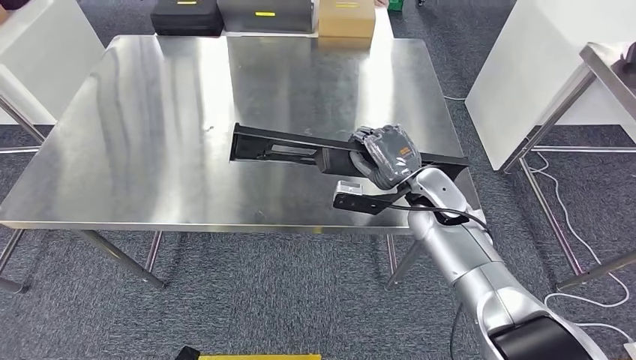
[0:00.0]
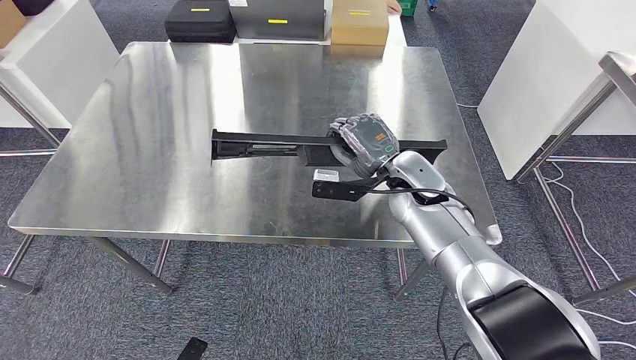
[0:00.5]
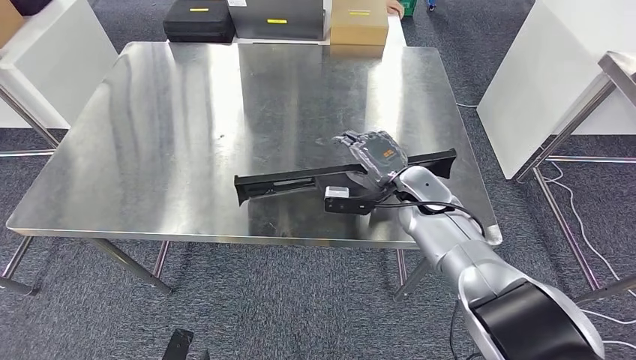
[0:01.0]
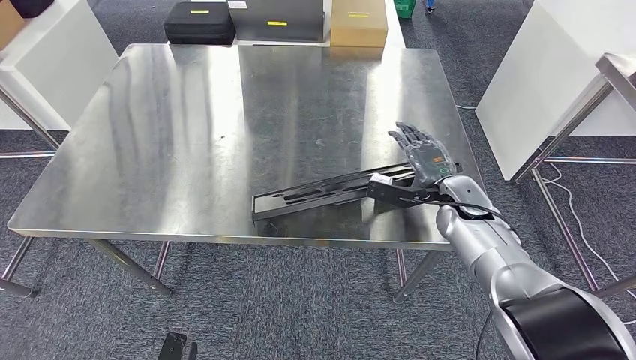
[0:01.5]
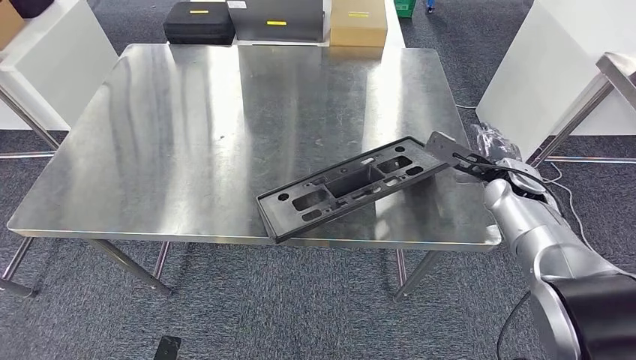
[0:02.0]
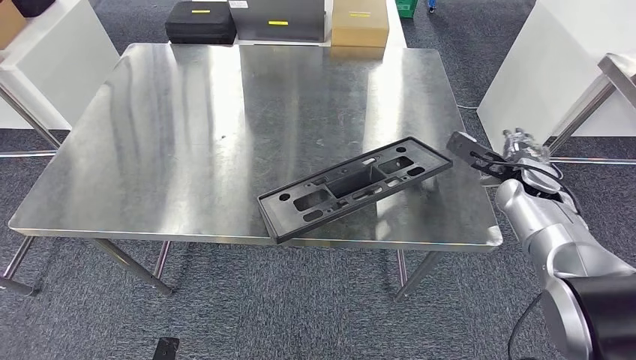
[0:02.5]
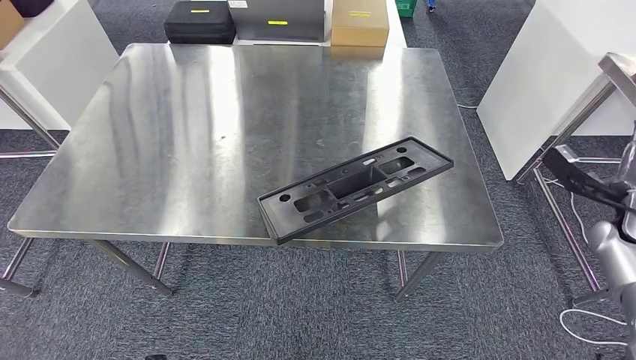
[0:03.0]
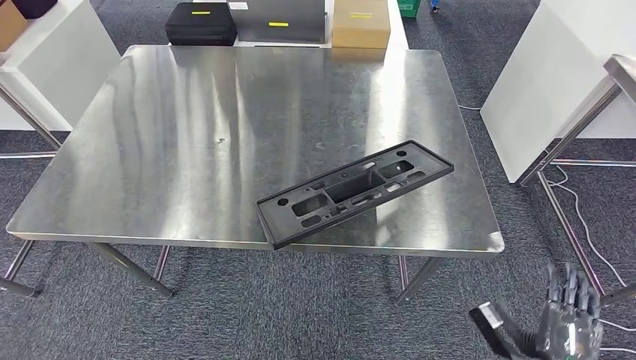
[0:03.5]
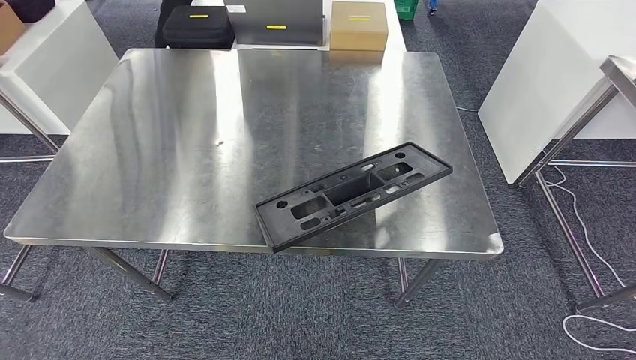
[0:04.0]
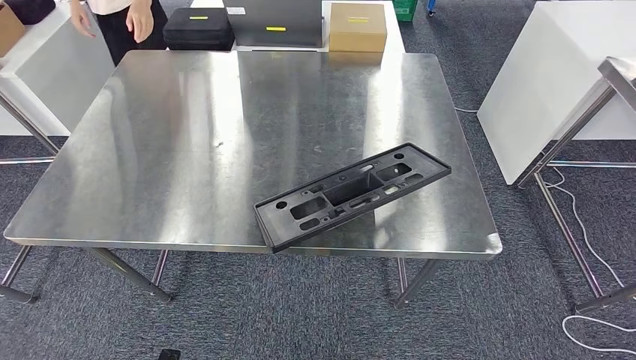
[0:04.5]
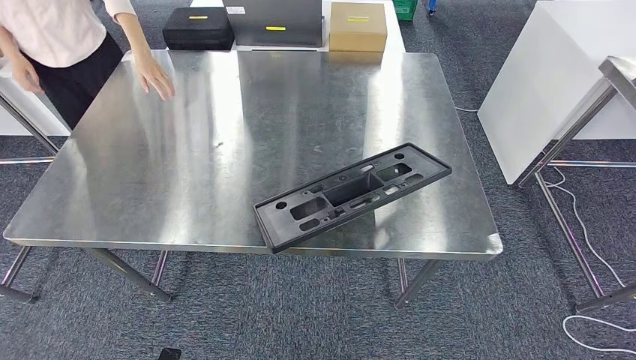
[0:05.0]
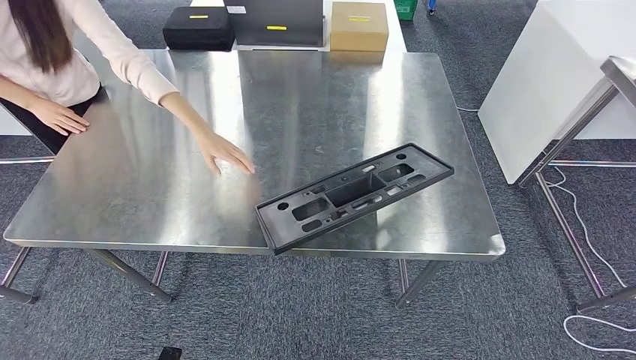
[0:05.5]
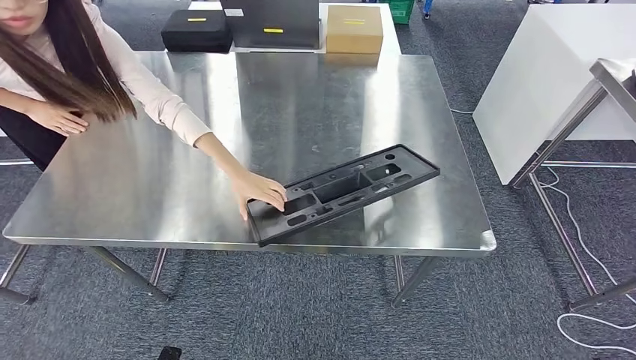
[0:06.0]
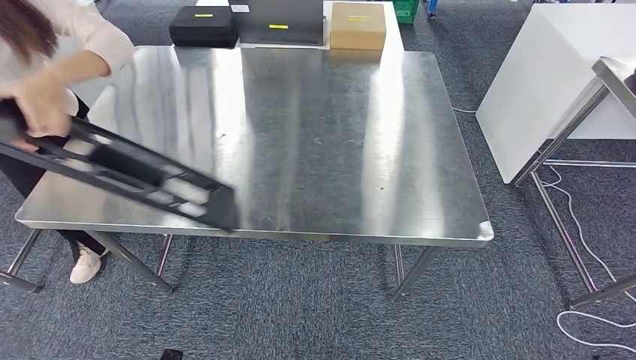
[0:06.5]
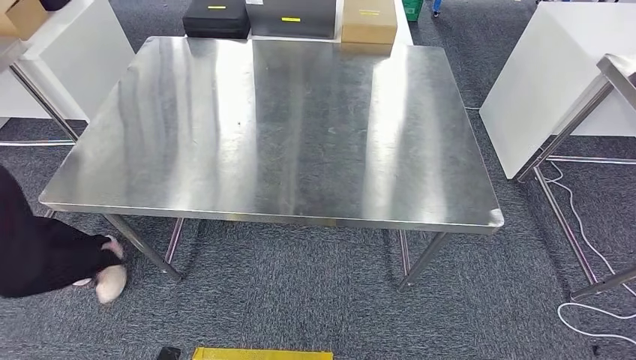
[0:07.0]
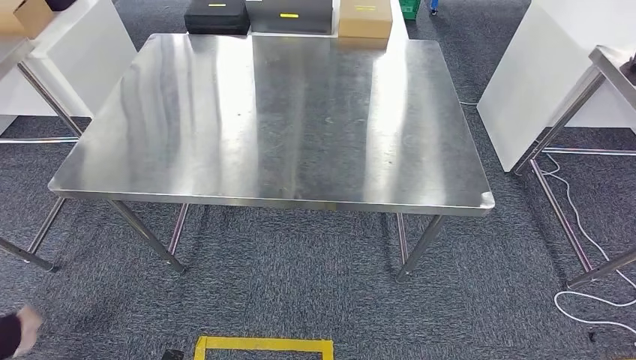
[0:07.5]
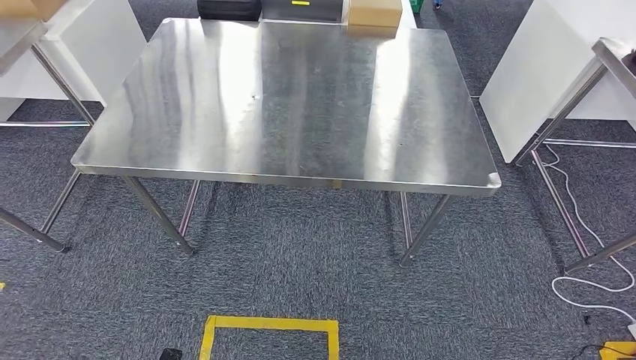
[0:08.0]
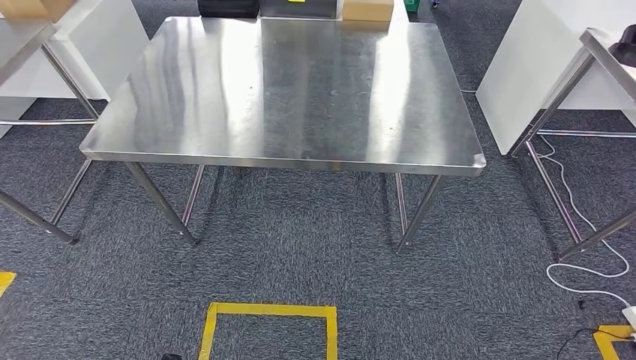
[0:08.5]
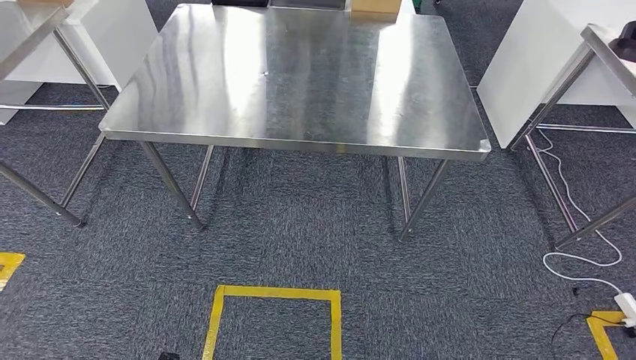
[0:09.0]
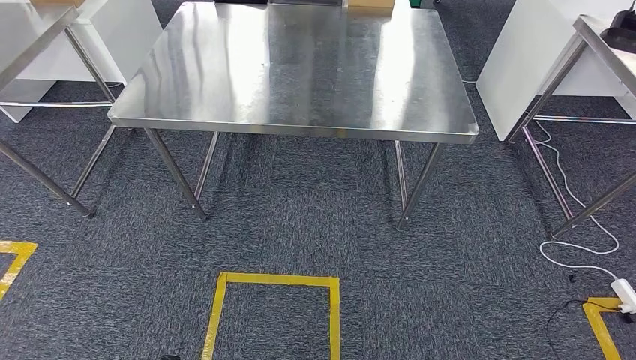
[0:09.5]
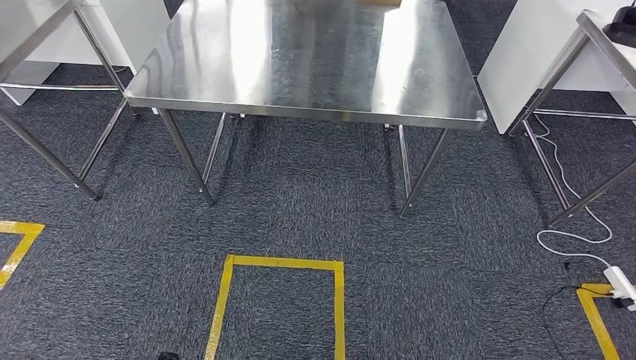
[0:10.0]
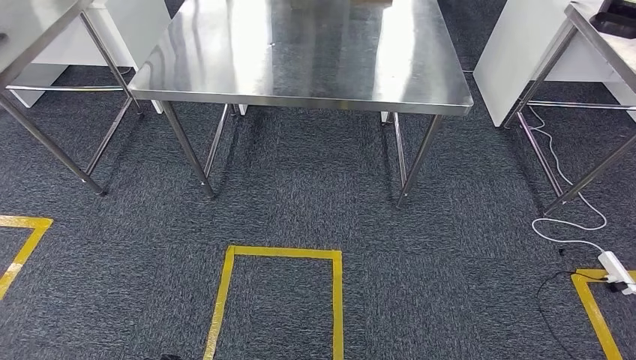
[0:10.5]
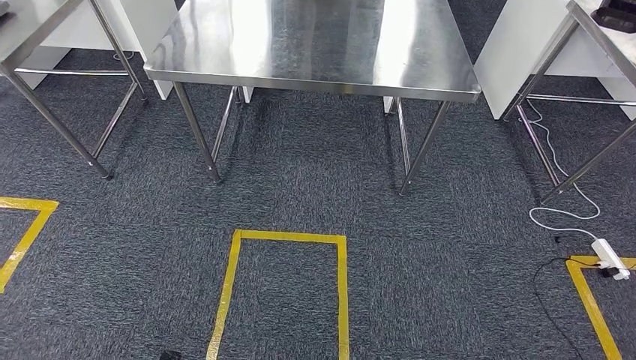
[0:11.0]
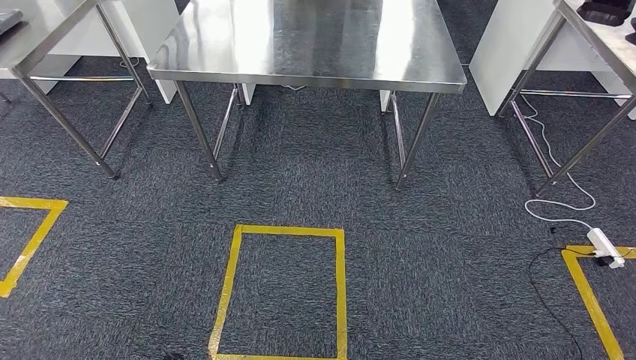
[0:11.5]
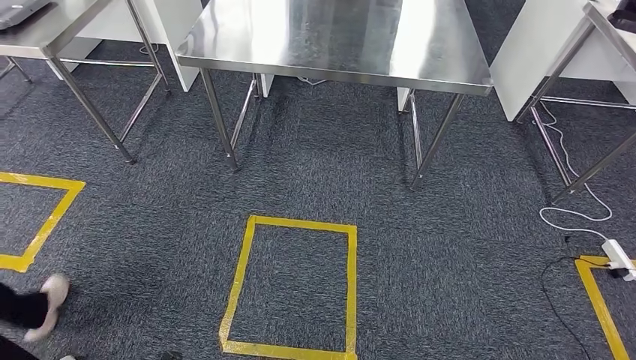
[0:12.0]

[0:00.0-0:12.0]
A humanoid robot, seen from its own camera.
Step, 0:00.0 to 0:04.0: Insert the large material into the corresponding slot on the workbench.

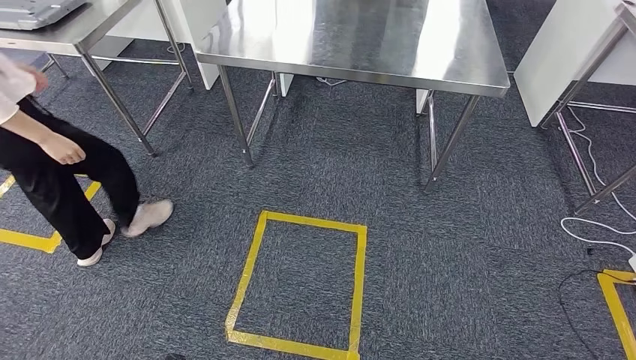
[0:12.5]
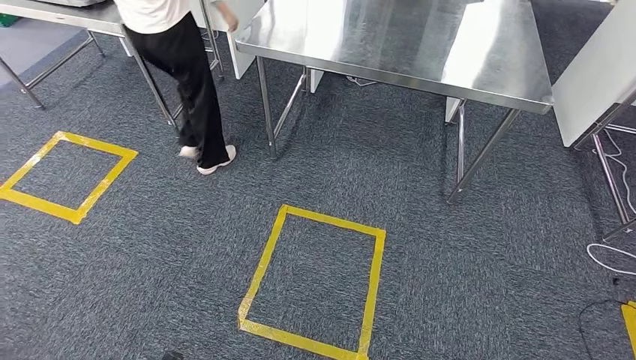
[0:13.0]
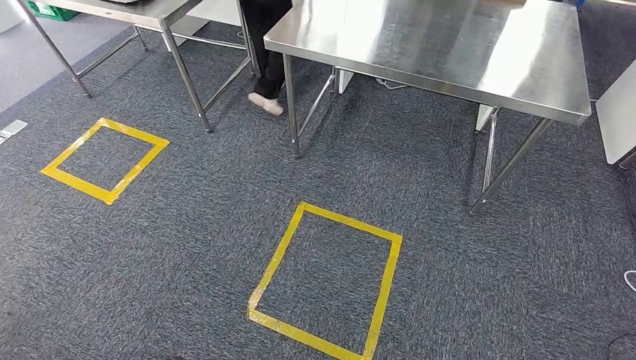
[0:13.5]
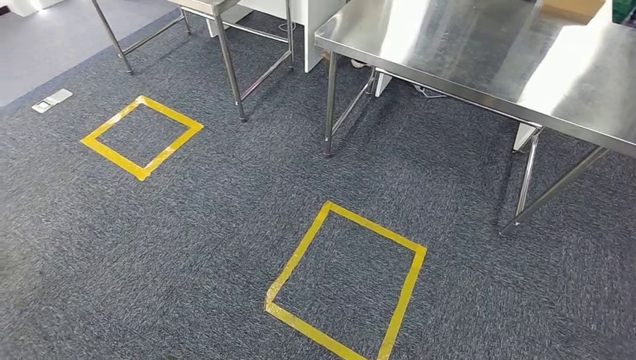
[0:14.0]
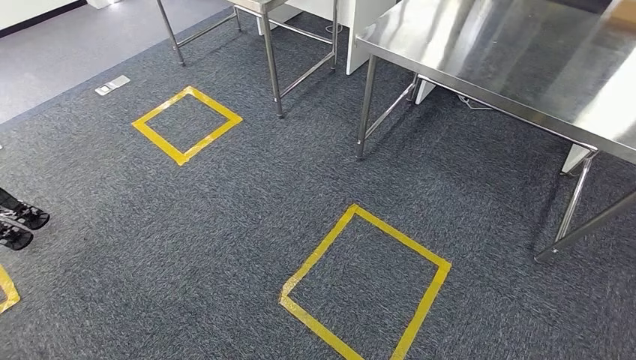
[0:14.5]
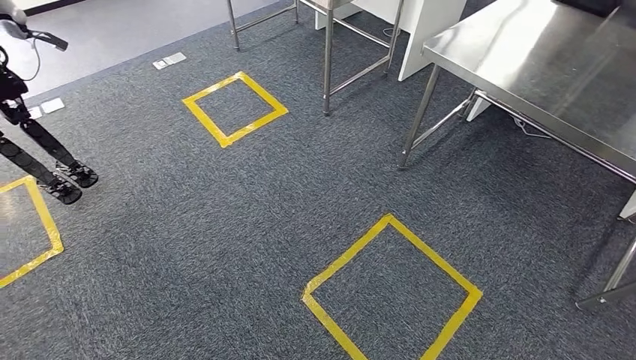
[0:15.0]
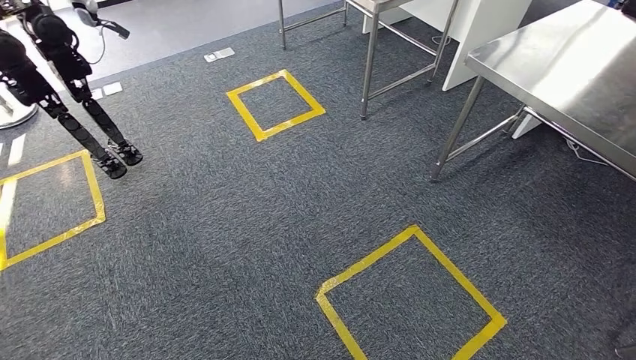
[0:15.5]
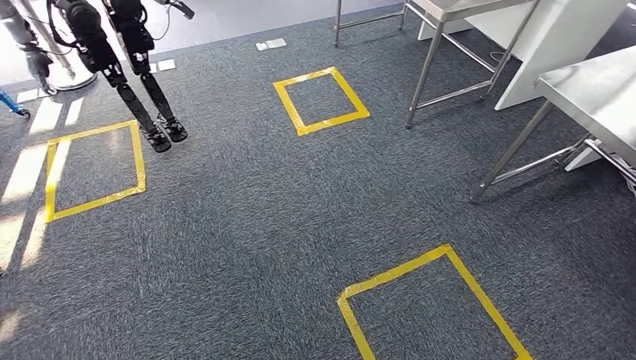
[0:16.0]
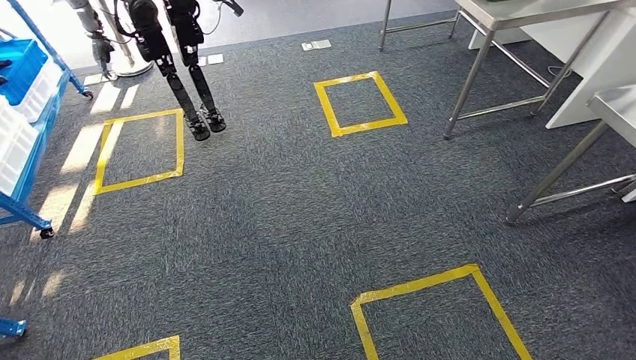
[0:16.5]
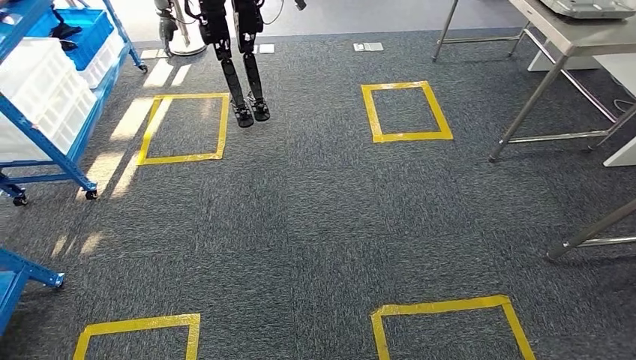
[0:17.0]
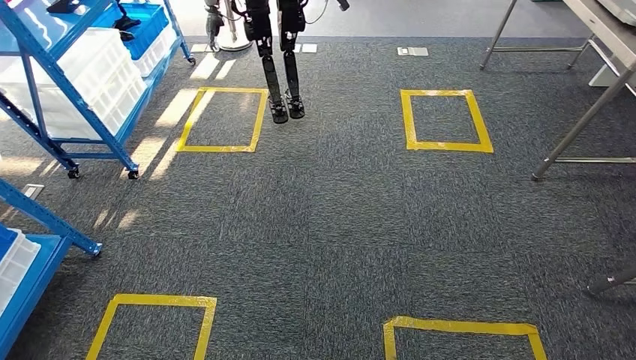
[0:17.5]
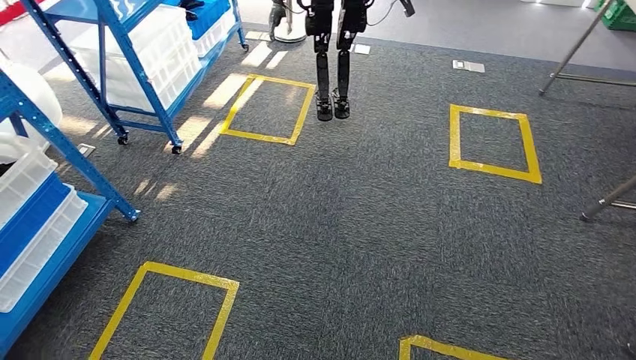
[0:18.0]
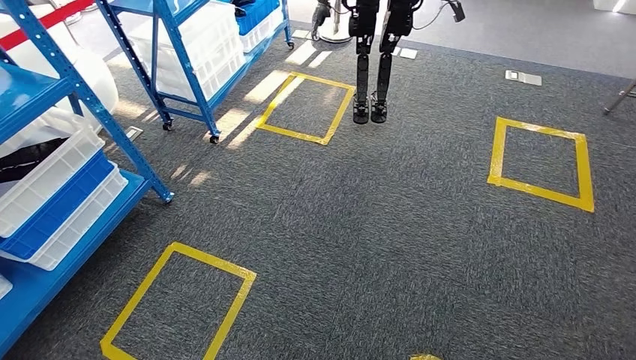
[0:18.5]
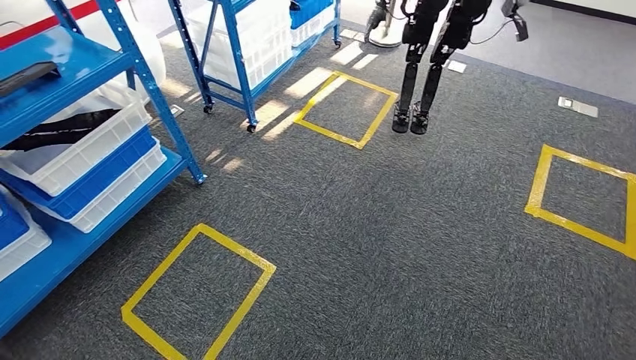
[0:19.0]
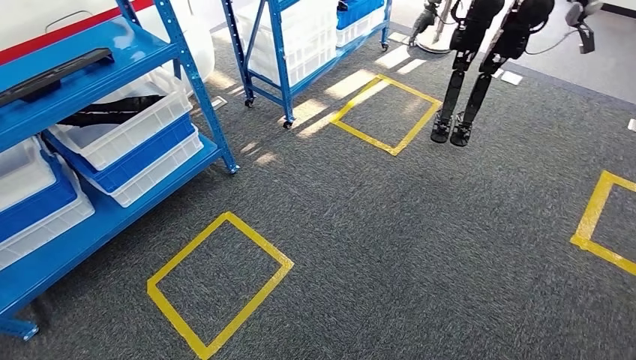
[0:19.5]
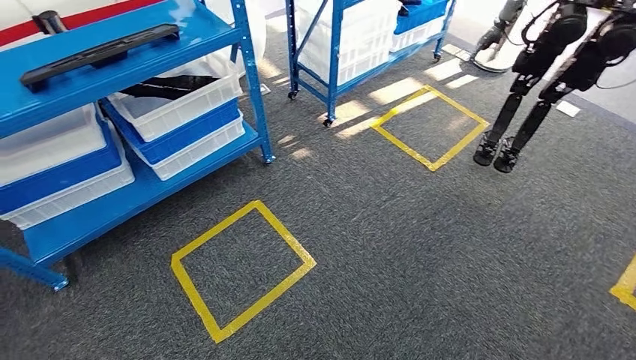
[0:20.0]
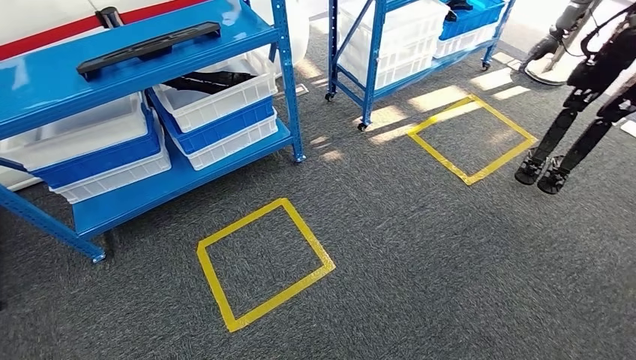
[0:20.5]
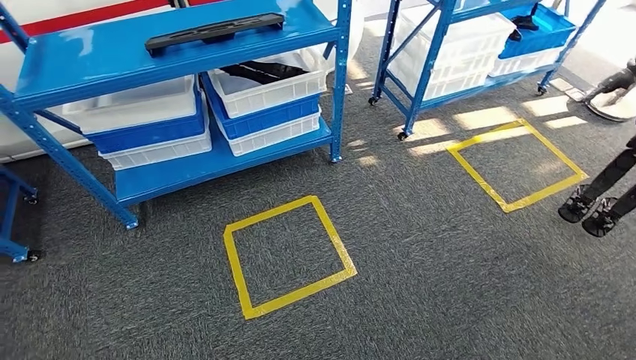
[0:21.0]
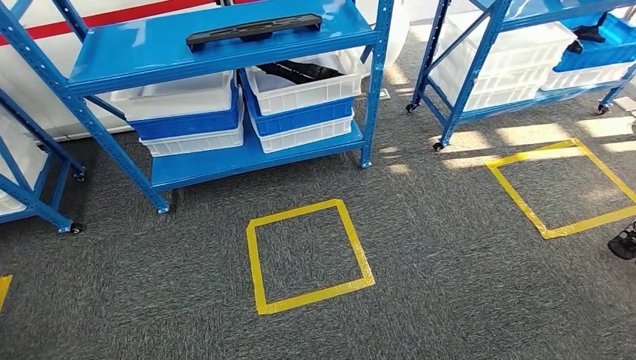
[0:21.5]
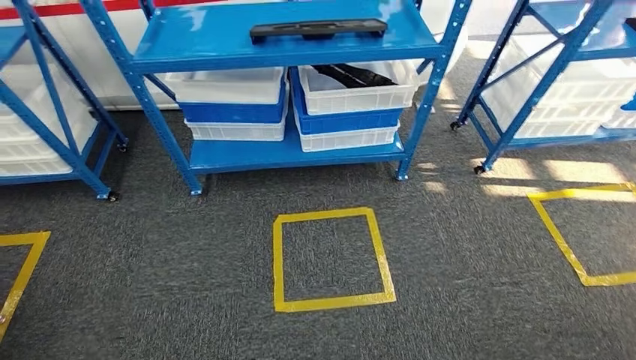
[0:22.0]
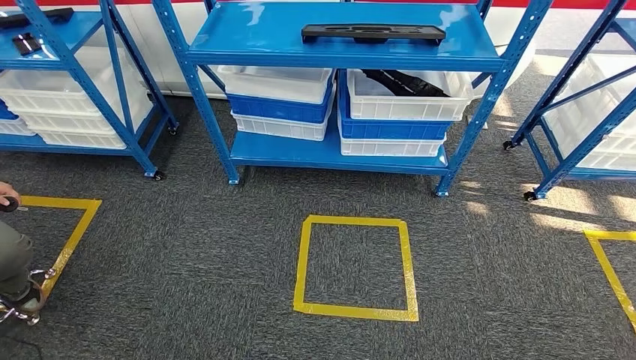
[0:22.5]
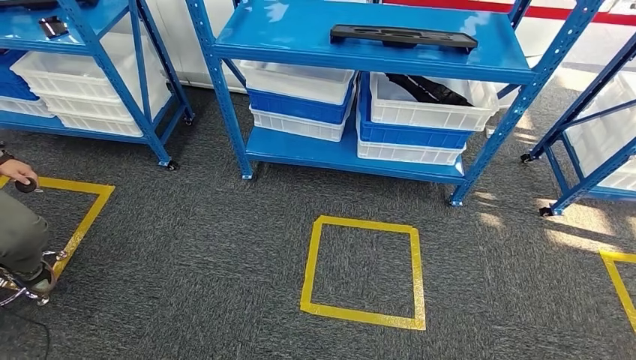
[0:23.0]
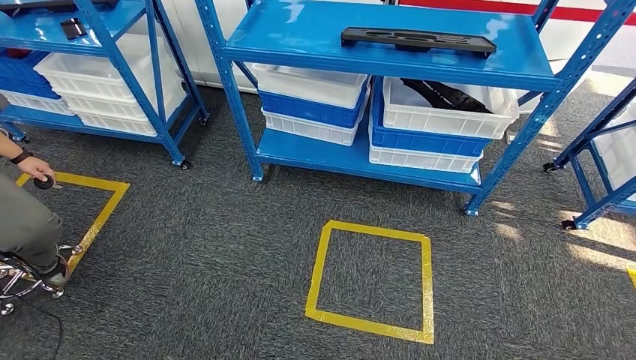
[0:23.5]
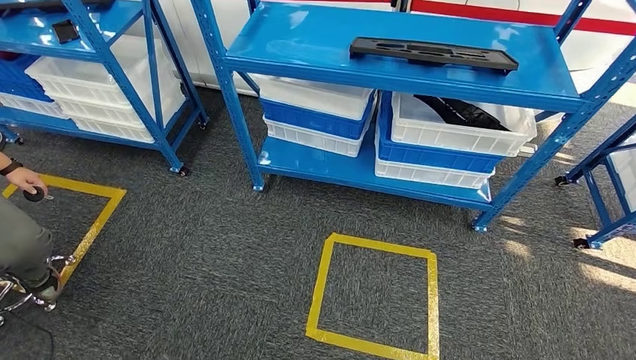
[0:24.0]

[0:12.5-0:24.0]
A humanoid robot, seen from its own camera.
Step, 0:12.5 to 0:24.0: Move to the initial position of the shelf.
